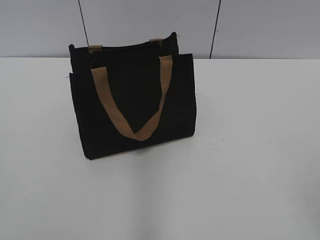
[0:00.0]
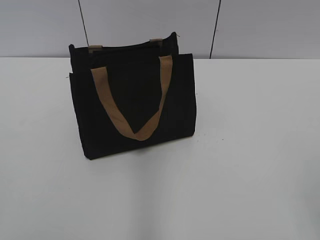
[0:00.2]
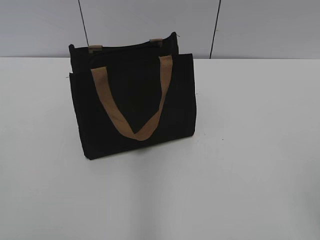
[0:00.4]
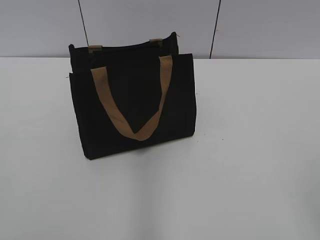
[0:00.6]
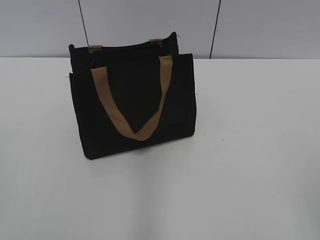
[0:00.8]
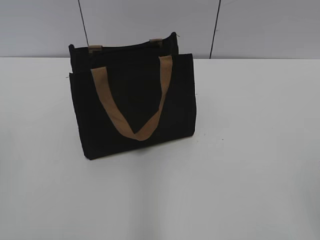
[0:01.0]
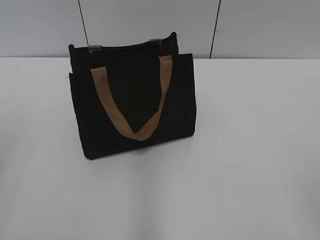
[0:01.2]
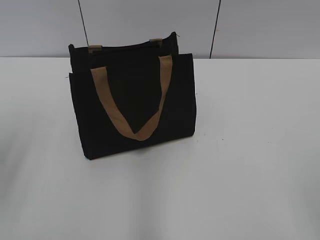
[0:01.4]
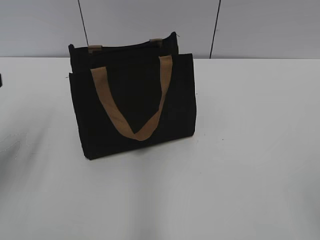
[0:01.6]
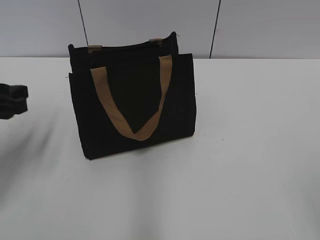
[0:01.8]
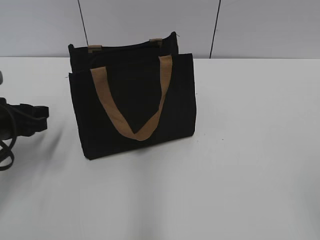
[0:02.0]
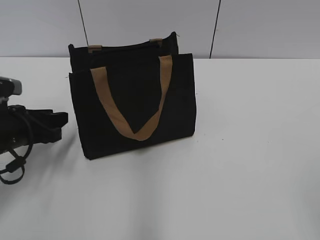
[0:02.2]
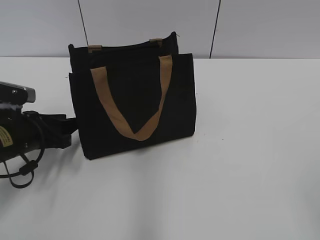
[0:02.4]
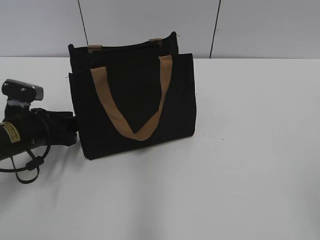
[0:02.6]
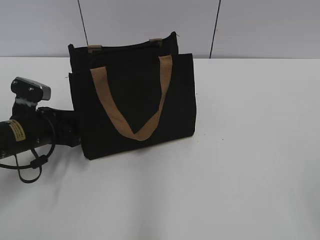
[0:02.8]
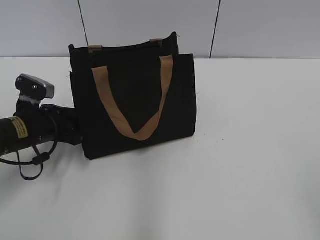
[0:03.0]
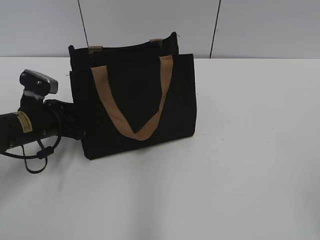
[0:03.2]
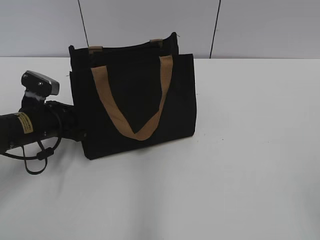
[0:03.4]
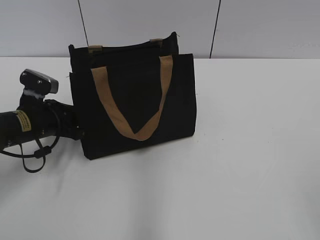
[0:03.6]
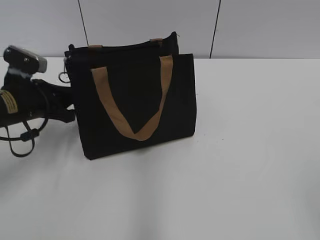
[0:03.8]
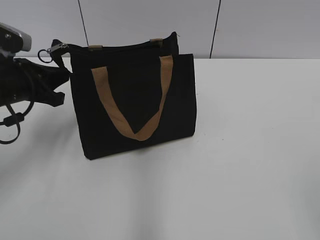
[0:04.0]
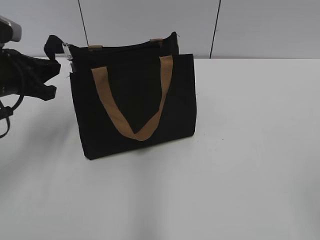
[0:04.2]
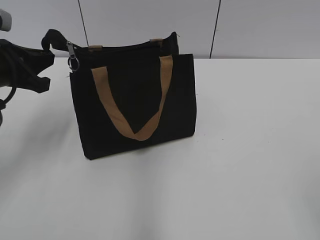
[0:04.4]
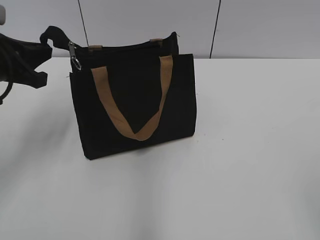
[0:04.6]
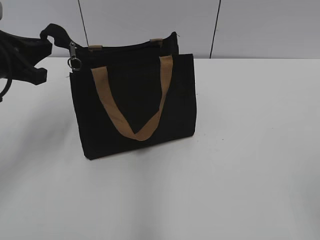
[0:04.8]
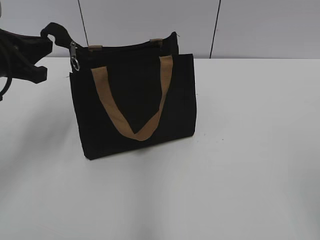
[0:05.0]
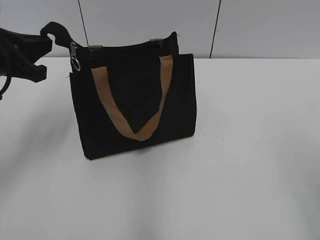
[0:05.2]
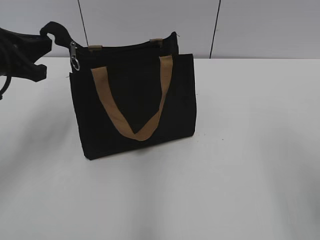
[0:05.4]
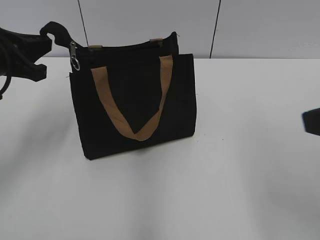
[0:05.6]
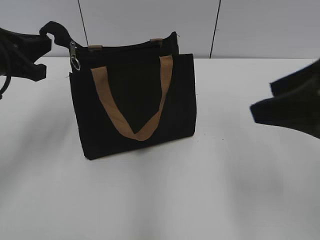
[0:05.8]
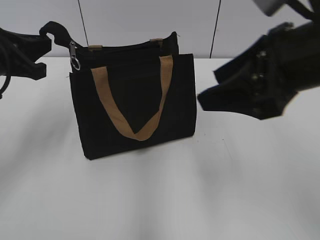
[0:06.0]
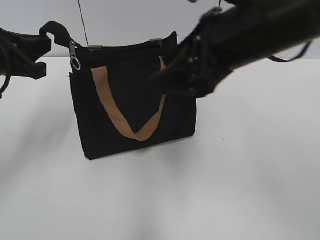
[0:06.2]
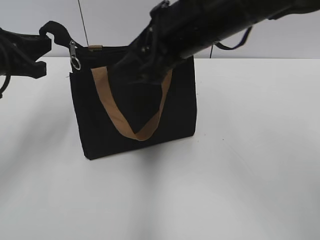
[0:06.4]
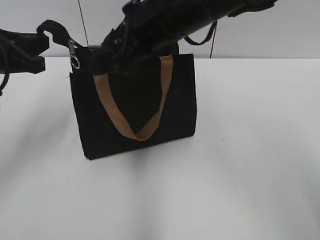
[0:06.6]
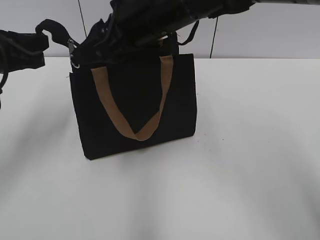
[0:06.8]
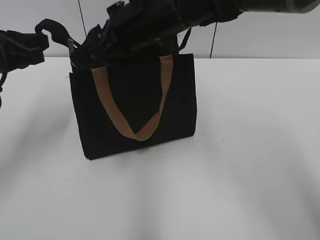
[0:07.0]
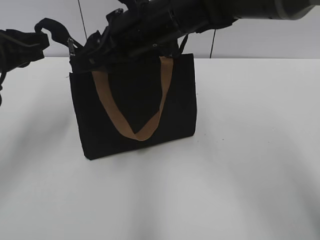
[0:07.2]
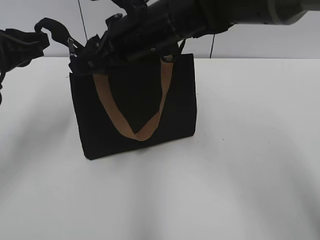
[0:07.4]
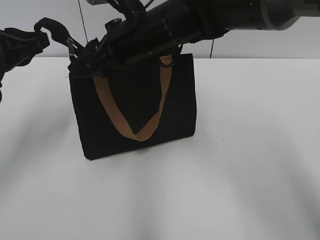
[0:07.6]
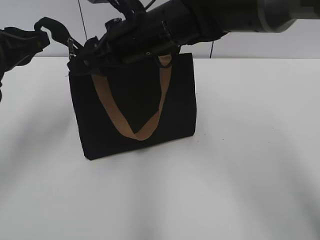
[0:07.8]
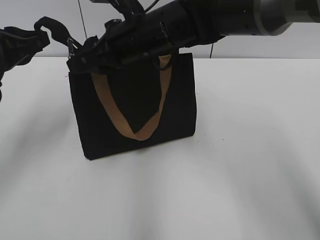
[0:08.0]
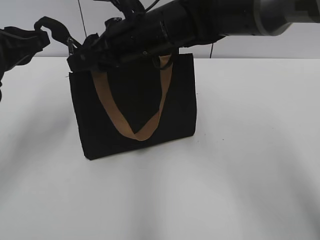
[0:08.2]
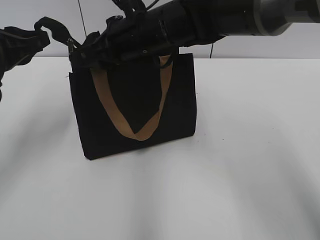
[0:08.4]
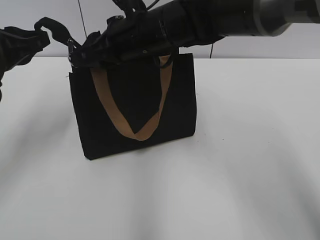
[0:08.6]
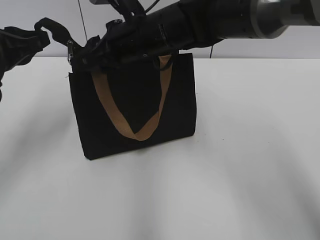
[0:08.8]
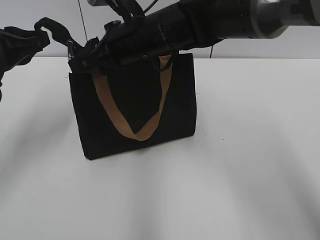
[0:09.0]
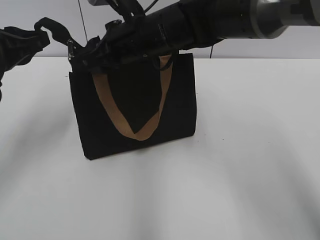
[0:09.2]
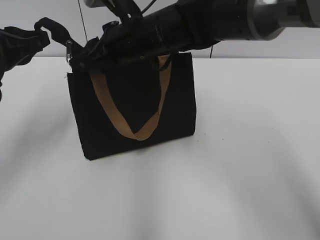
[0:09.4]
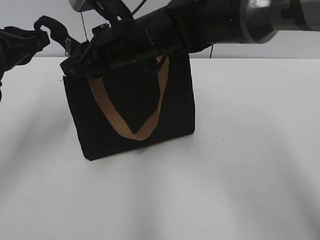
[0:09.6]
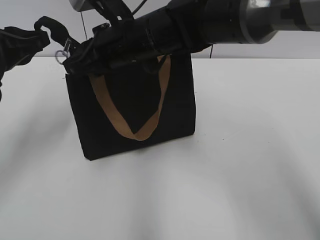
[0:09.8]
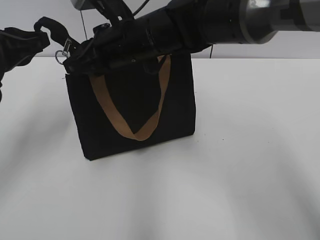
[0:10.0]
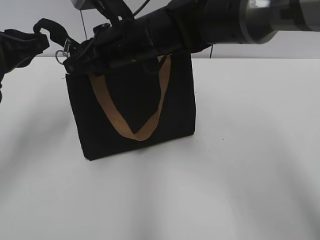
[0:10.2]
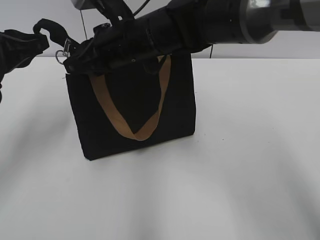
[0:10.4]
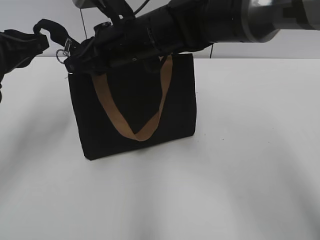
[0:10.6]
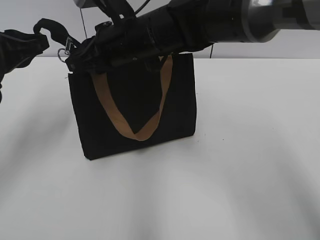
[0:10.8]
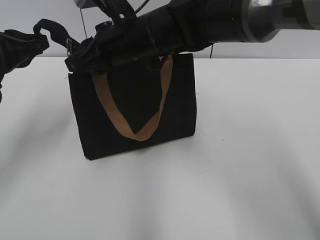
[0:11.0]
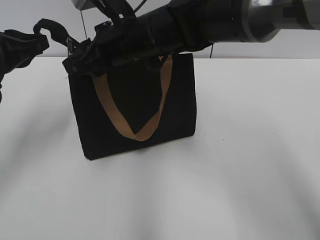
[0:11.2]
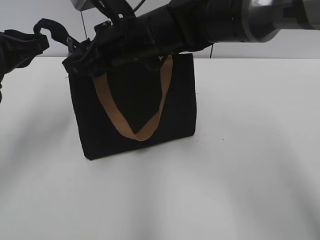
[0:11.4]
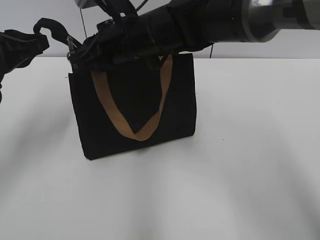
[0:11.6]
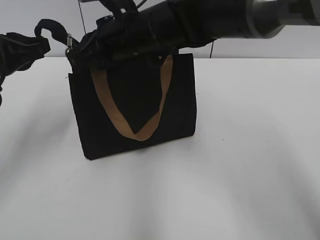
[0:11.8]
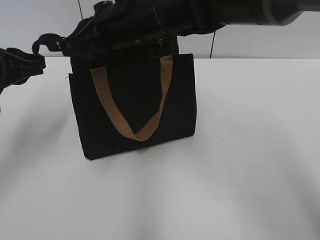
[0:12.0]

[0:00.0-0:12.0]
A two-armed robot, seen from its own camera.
0:01.6 to 0:03.0: The left gripper is displaced downward and forward by about 20 cm.
0:03.0 to 0:04.4: The left gripper heads upward, covering roughly 10 cm, and closes up.
0:04.4 to 0:06.0: The right gripper is displaced forward and to the left by about 25 cm.
0:06.0 to 0:07.6: The right gripper heads to the left and forward, covering approximately 25 cm.
0:07.6 to 0:09.0: The grippers move only a little.
0:09.0 to 0:10.4: The right gripper closes.
0:10.4 to 0:12.0: The right gripper opens, then closes again.

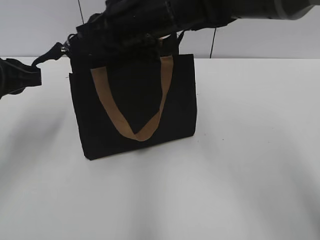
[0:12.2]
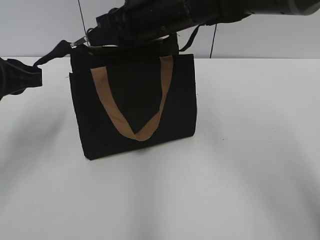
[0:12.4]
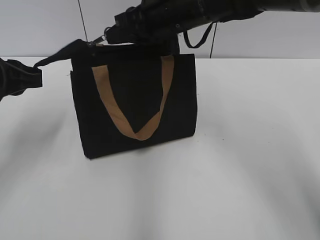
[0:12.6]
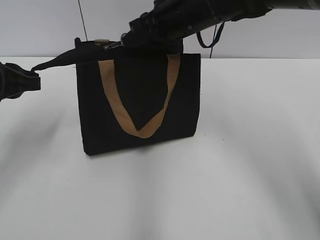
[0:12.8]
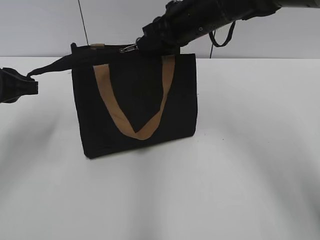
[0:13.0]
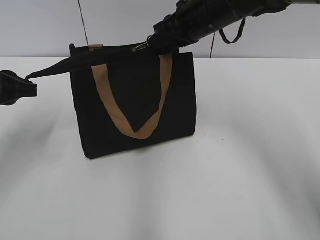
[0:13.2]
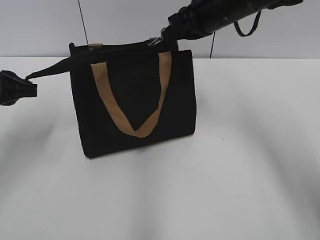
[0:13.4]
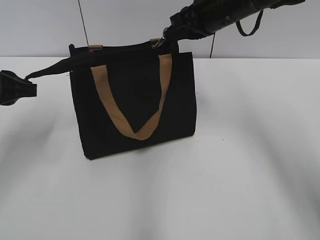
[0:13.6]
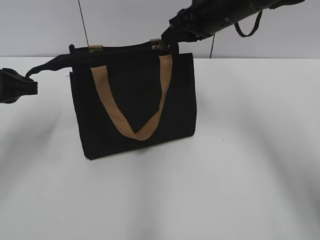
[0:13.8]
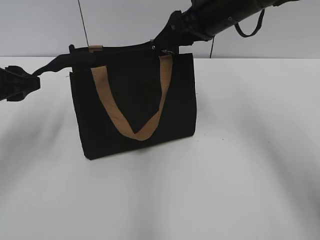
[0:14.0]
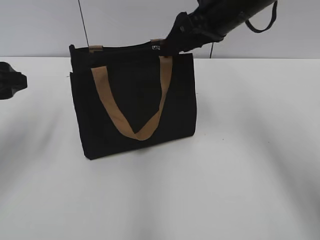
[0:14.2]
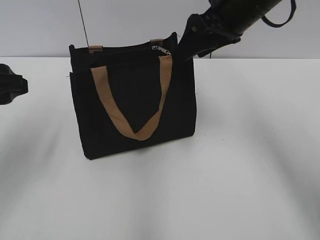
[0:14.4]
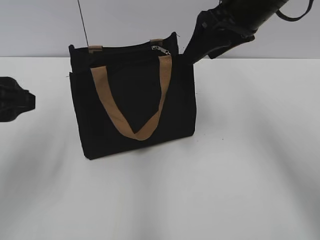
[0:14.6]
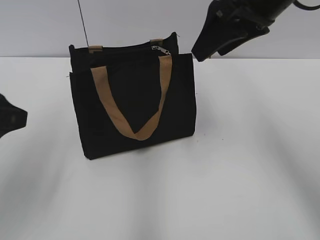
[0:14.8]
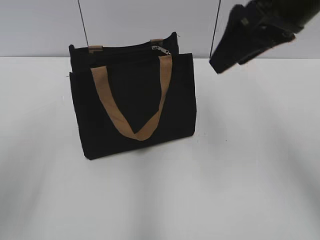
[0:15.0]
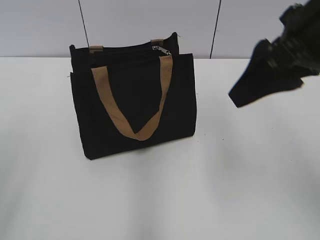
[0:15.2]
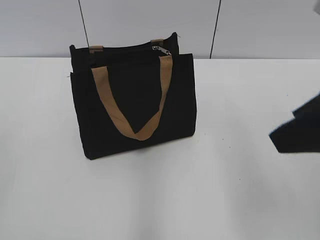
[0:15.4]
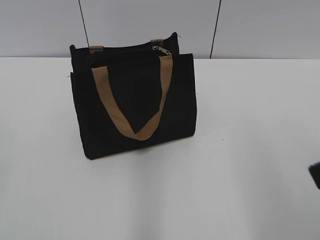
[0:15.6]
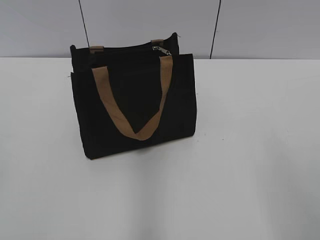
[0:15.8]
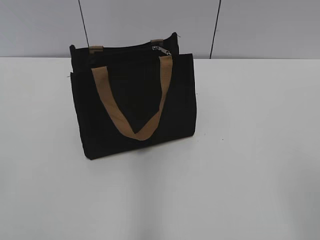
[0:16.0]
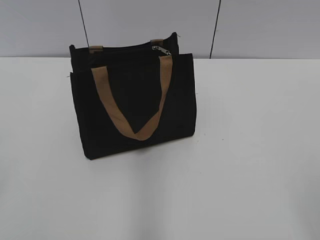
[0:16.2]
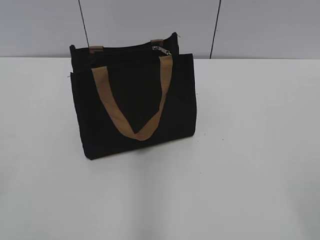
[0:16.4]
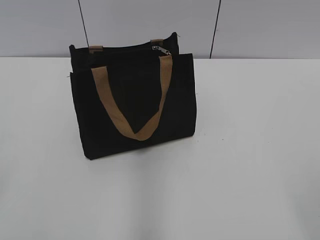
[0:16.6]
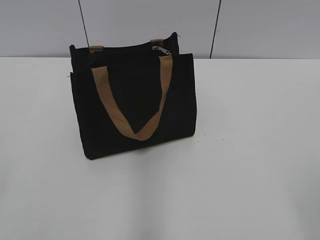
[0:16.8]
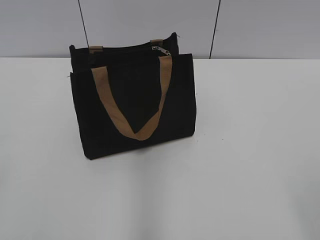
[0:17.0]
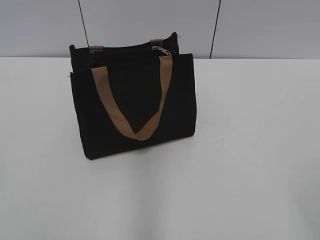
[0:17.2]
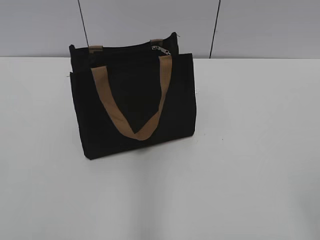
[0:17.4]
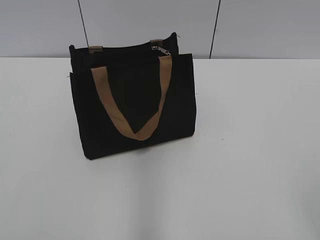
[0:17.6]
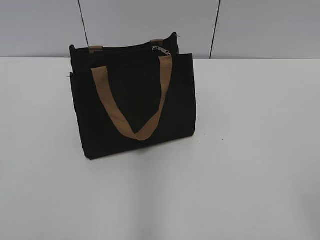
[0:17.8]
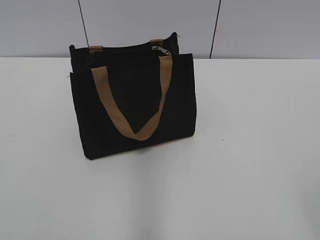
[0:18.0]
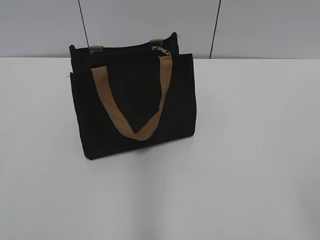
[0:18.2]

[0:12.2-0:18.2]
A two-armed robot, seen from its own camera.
0:12.2 to 0:13.8: The right gripper shifts approximately 15 cm to the right and forward.
0:13.8 to 0:15.2: The grippers both shift backward and upward by roughly 20 cm. The left gripper opens up. The right gripper opens.
0:15.2 to 0:16.6: The right gripper moves backward and to the right, about 30 cm.

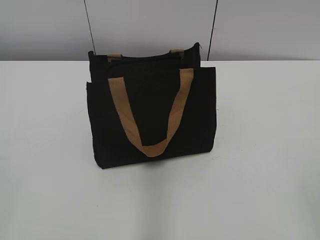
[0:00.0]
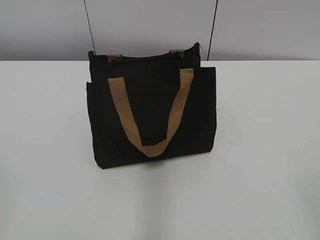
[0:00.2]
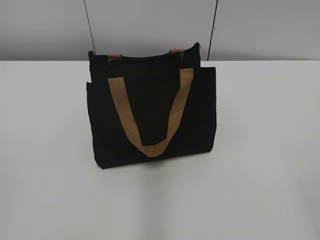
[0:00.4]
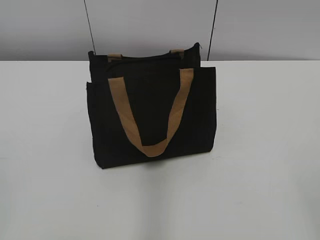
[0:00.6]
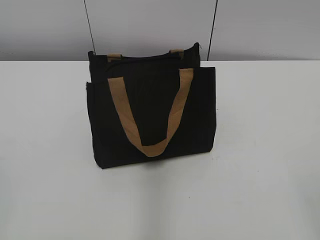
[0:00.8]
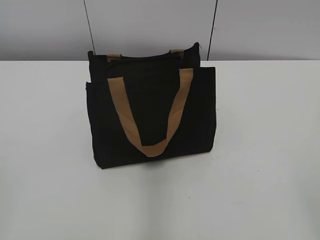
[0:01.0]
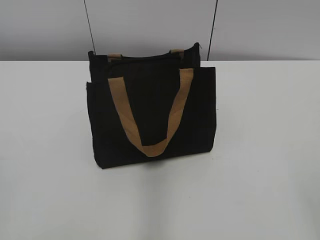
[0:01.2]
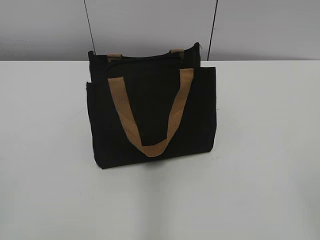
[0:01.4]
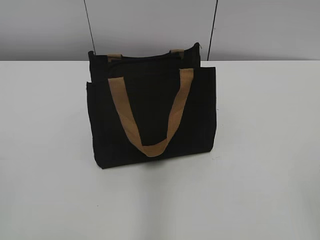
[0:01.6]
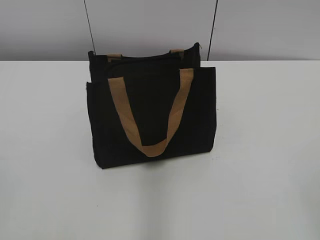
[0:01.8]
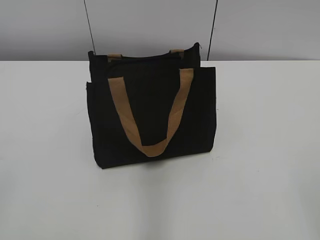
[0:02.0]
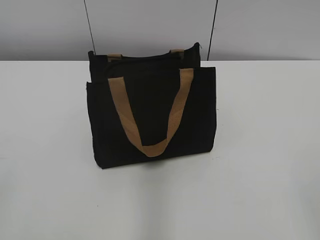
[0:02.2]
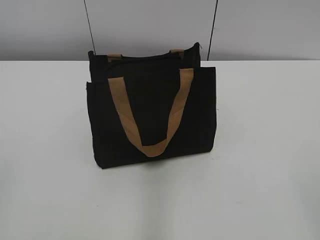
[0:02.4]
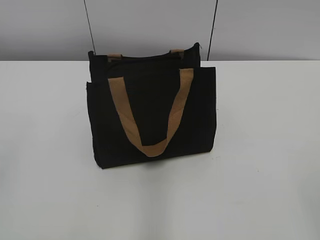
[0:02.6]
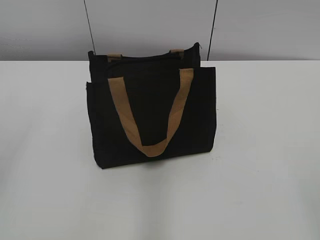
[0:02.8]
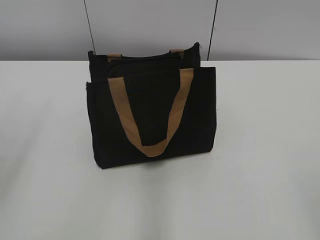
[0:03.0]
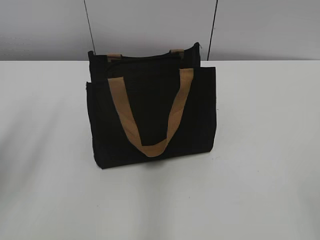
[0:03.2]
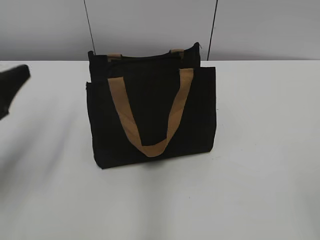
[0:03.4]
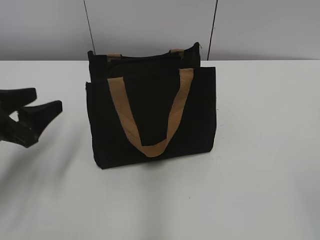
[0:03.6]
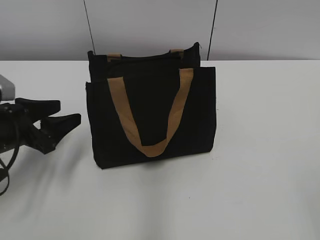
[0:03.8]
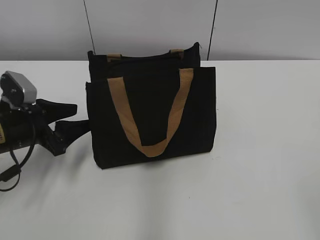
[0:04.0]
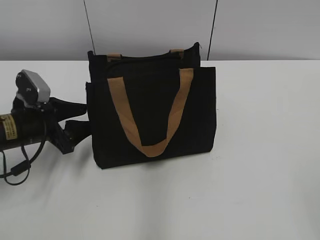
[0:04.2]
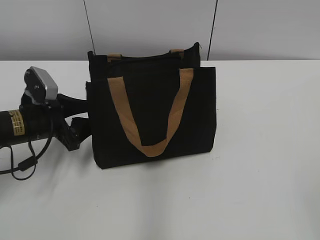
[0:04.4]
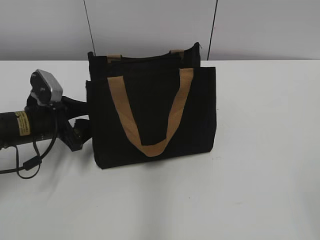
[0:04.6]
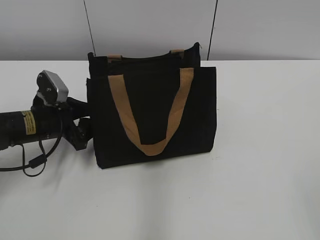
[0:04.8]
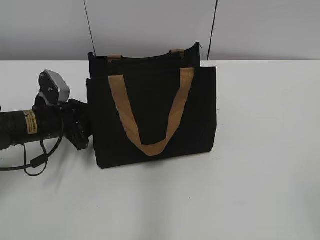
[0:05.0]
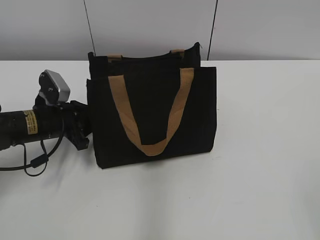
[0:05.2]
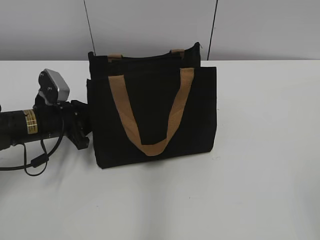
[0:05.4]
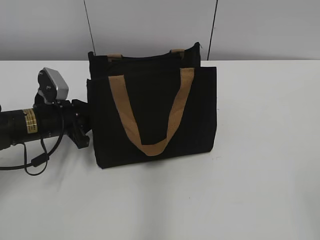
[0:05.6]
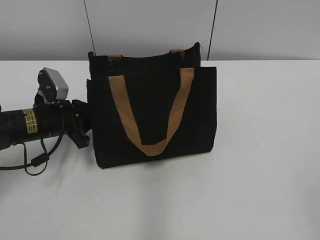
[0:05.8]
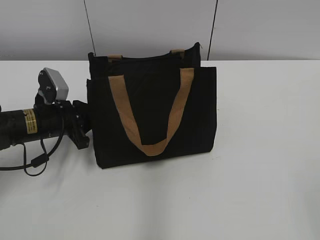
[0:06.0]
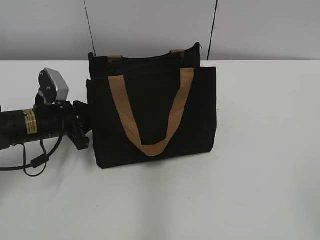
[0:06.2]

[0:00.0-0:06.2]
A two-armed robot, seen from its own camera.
0:01.6 to 0:03.2: The left gripper heads forward, covering approximately 15 cm, and opens.
0:03.2 to 0:04.6: The left gripper moves downward, forward and to the right, some 25 cm.
0:04.6 to 0:06.2: The left gripper closes up.
